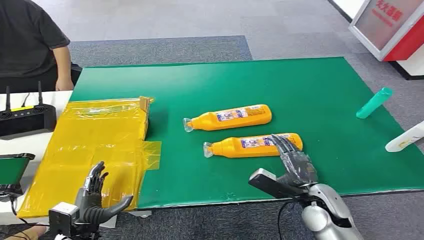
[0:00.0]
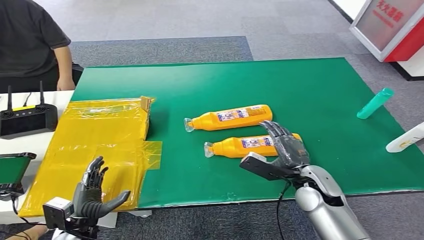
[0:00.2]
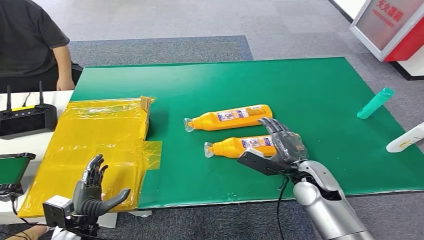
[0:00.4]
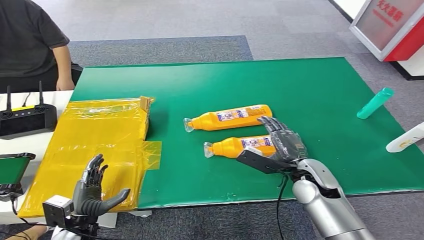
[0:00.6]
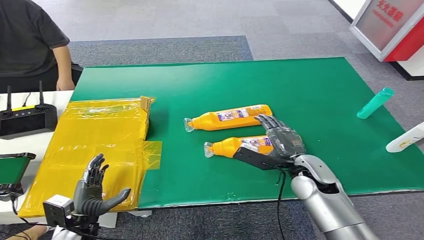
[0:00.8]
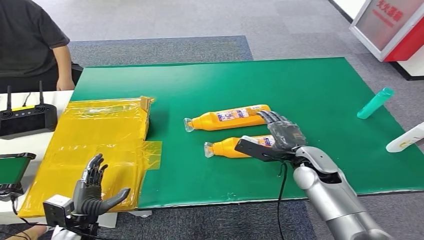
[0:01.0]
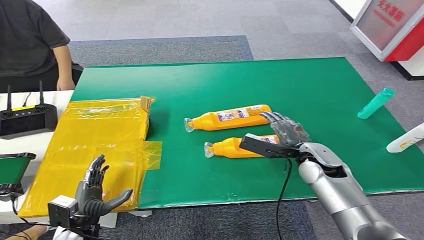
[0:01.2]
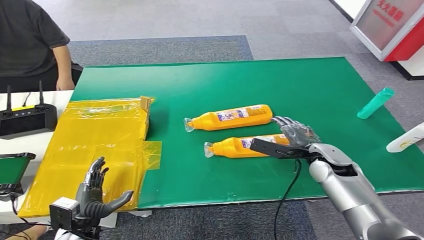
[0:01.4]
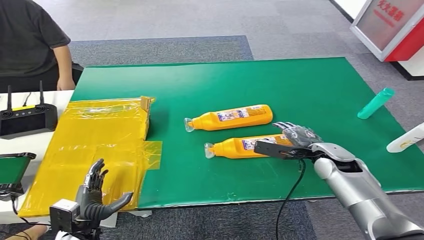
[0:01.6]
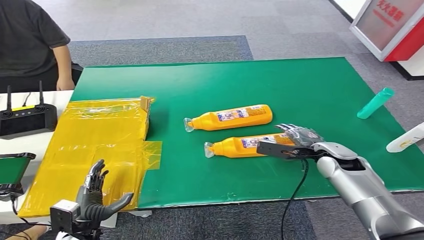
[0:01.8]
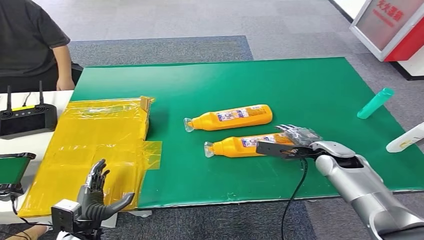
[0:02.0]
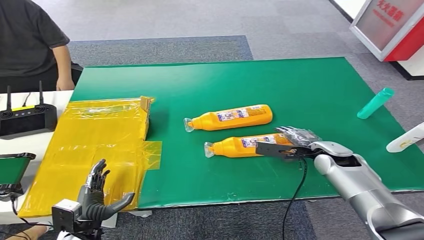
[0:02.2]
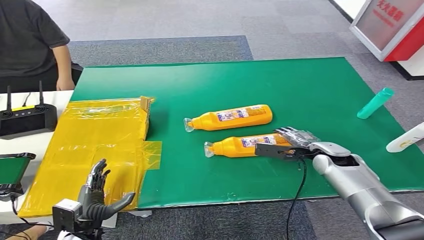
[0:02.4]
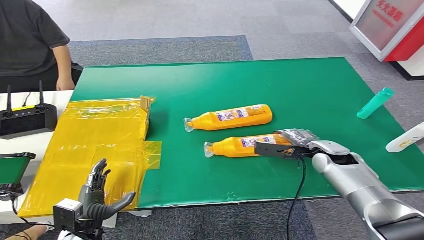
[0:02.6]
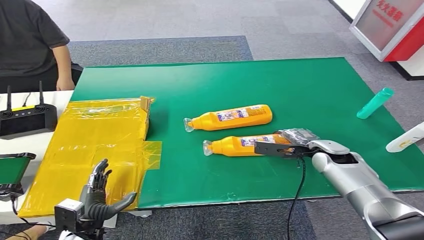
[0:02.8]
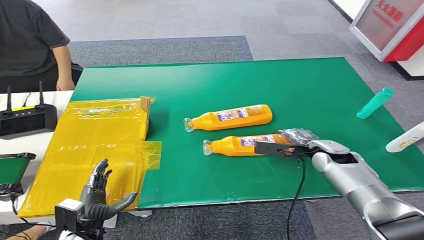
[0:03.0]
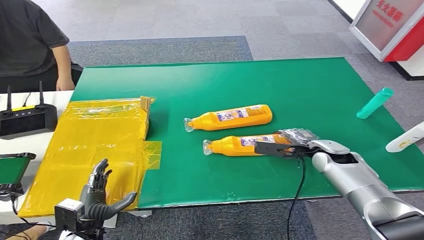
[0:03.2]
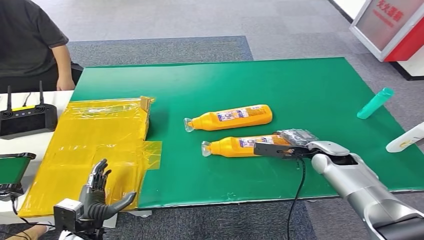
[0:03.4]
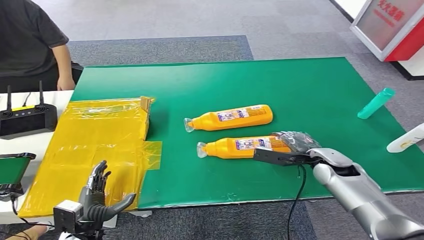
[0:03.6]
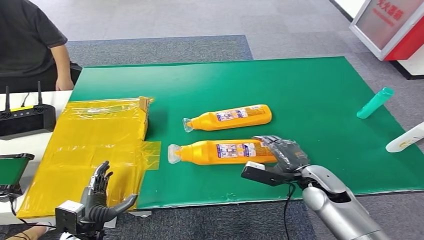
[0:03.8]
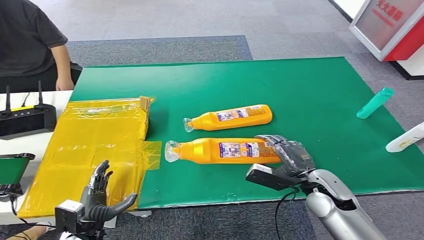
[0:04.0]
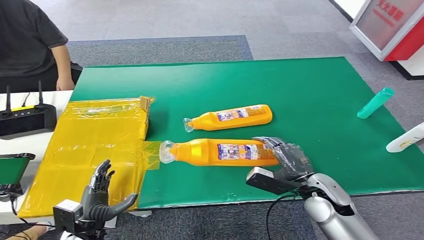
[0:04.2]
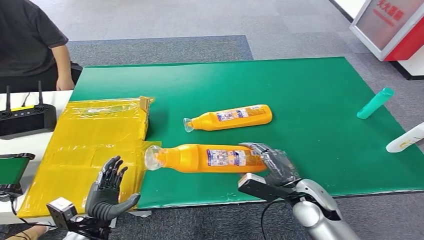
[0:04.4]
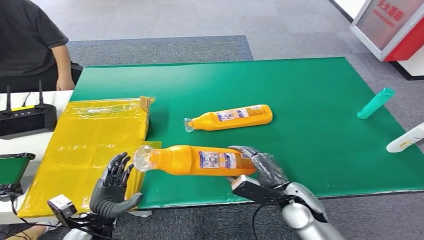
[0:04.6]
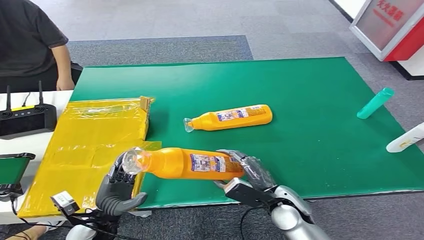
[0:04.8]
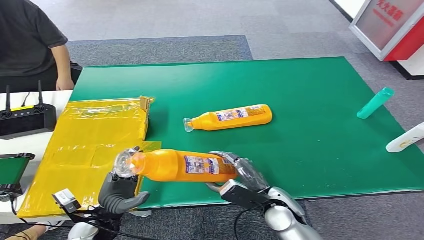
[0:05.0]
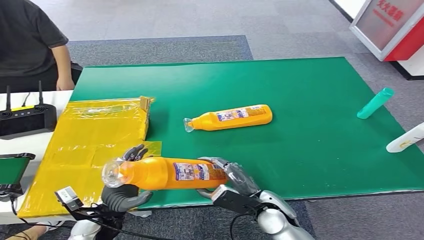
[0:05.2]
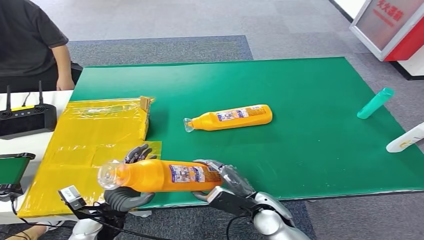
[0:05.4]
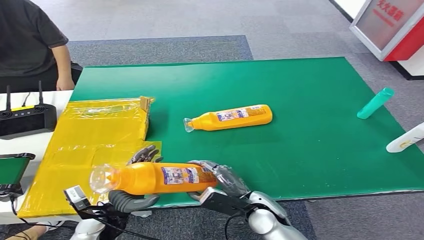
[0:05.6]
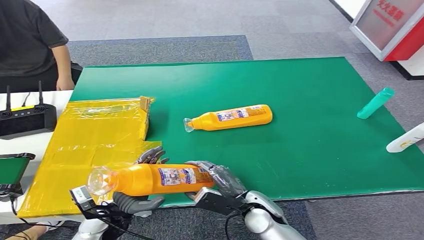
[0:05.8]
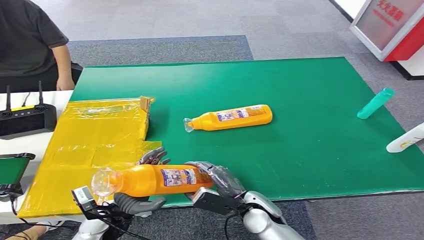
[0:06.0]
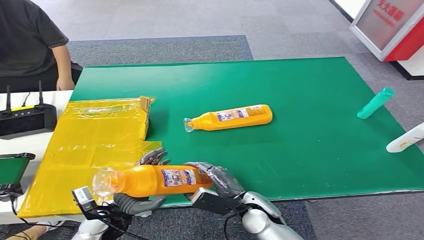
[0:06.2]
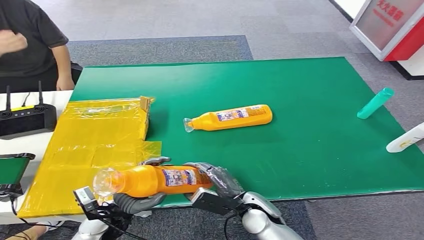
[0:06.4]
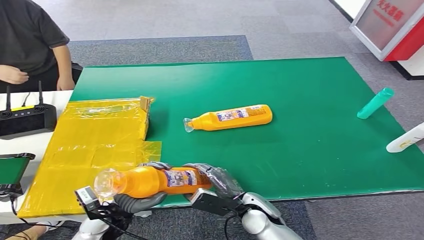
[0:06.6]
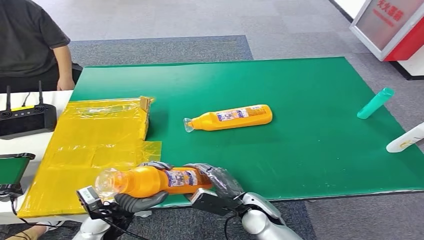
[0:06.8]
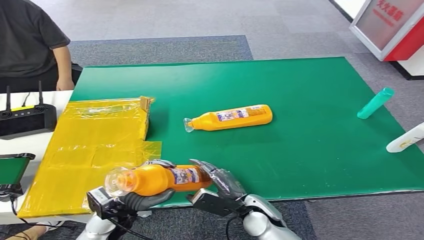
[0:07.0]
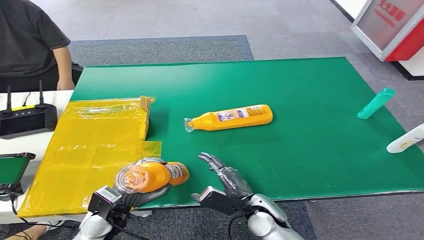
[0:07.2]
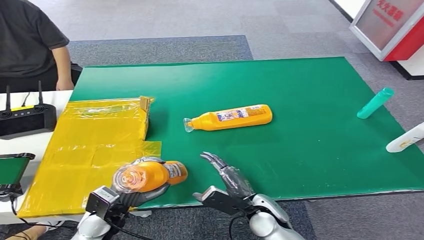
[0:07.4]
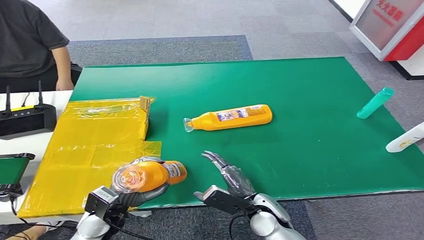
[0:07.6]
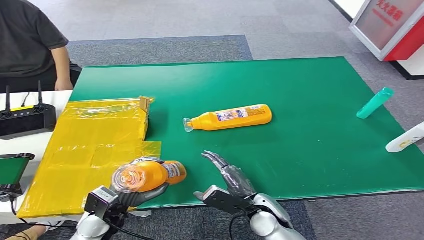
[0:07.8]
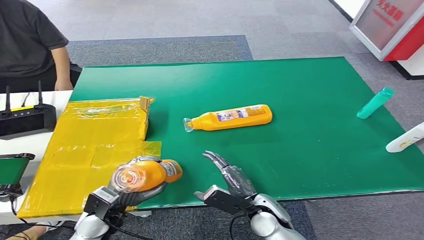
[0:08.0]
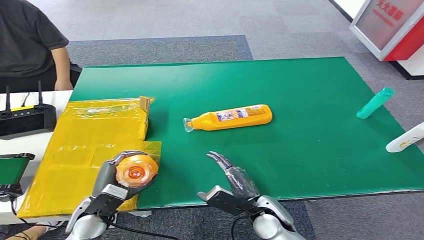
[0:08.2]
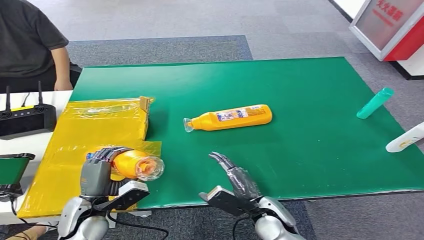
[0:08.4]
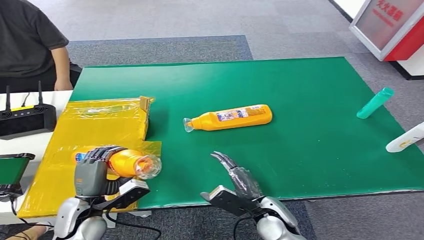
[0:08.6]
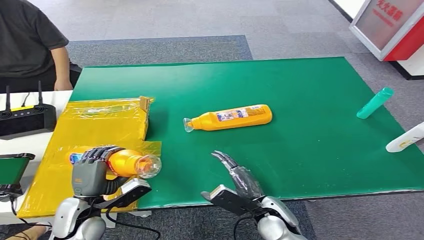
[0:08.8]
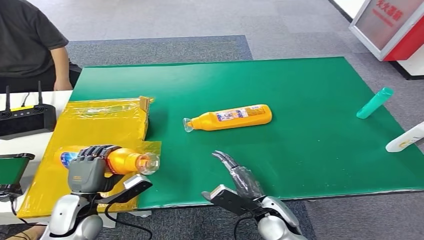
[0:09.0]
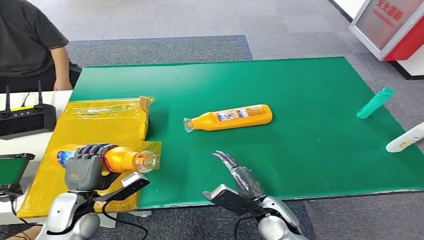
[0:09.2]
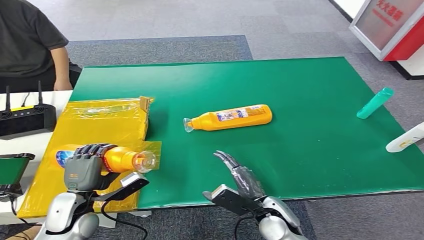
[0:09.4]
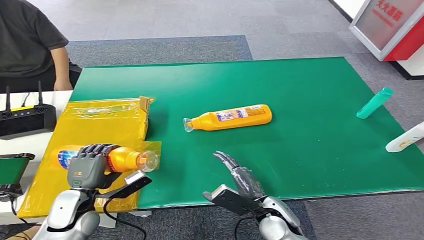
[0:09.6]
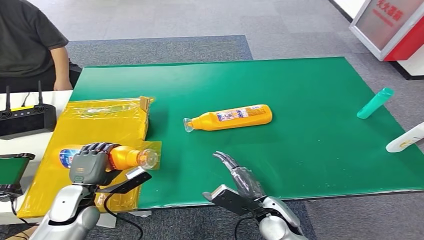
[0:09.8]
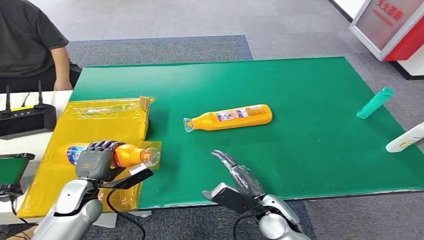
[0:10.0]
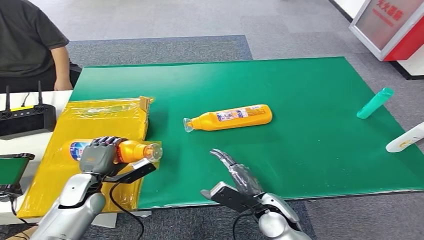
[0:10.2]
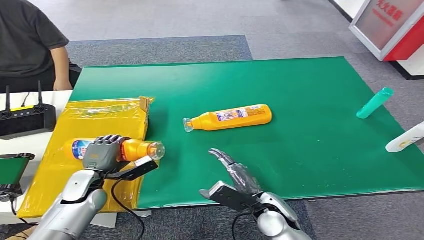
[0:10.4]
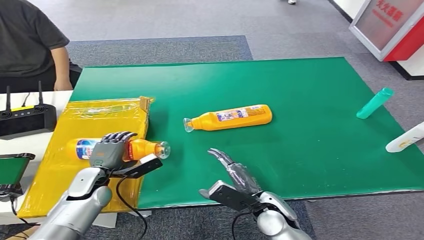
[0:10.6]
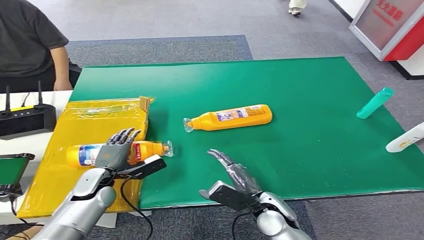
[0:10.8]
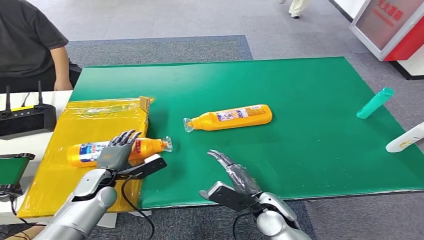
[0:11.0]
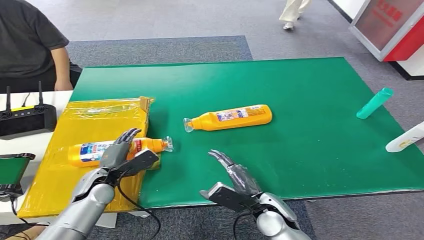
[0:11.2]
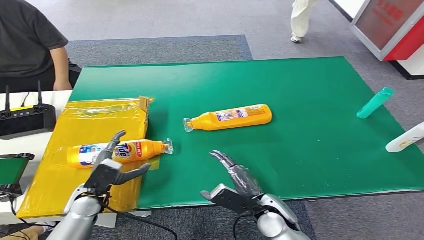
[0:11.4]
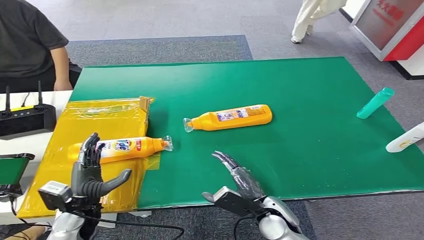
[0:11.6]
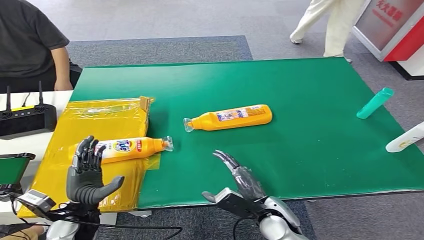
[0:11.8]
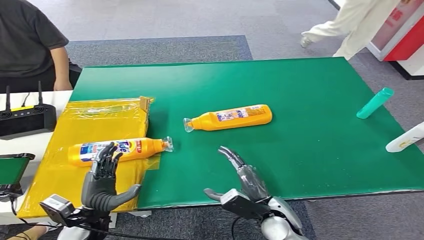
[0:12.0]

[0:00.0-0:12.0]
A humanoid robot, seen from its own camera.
Step, 0:00.0 to 0:03.8: Pick up the bottle from the table.
Step, 0:04.0 to 0:12.0: Turn the bottle to the front side.
0:01.6 to 0:03.0: The hands move only a little.
0:03.0 to 0:04.4: The right hand is displaced backward and to the left by approximately 15 cm.
0:04.4 to 0:06.0: The right hand travels to the left by some 10 cm. Meanwhile the left hand goes roughly 5 cm to the right.
0:07.6 to 0:09.0: The left hand changes place by about 5 cm.
0:09.0 to 0:10.4: The left hand is displaced forward by some 10 cm.
0:10.4 to 0:12.0: The left hand is displaced backward by approximately 10 cm.
